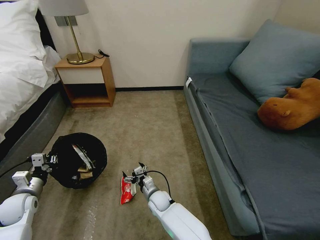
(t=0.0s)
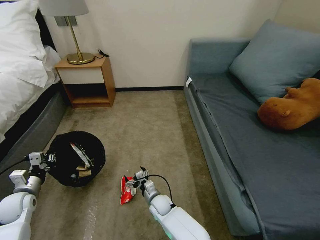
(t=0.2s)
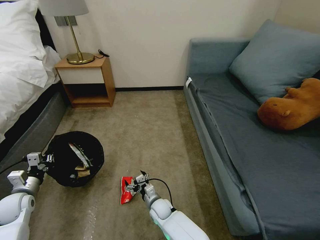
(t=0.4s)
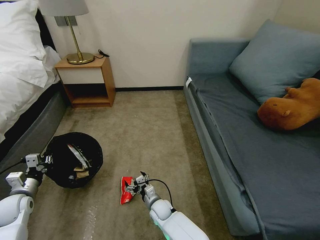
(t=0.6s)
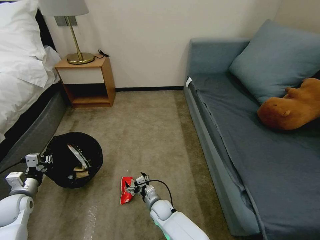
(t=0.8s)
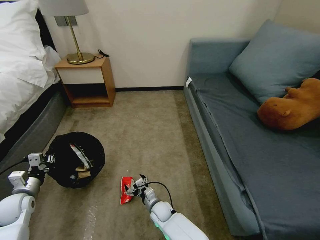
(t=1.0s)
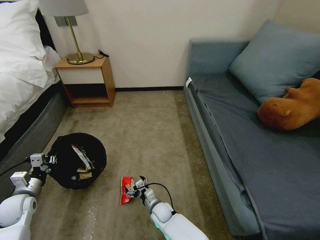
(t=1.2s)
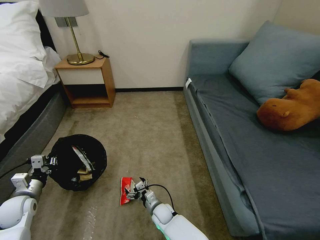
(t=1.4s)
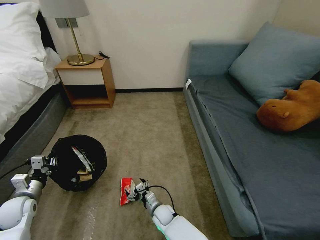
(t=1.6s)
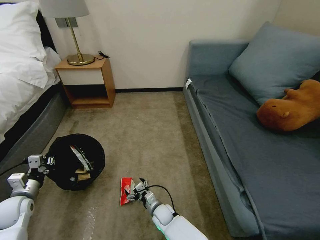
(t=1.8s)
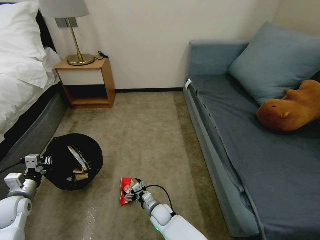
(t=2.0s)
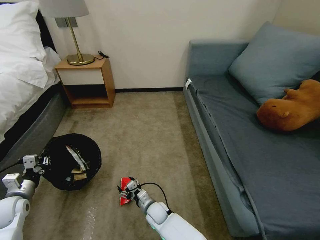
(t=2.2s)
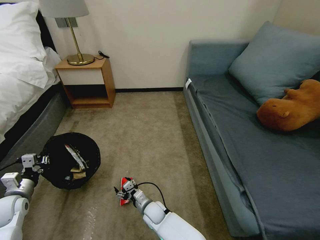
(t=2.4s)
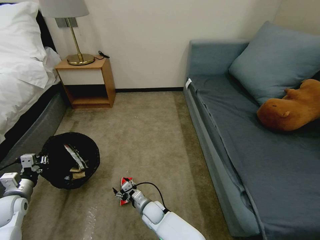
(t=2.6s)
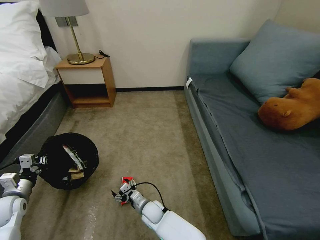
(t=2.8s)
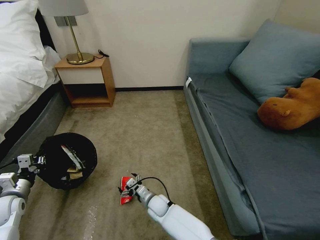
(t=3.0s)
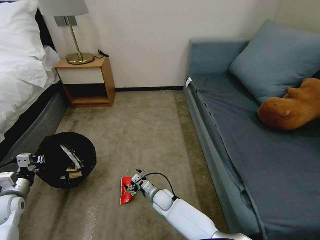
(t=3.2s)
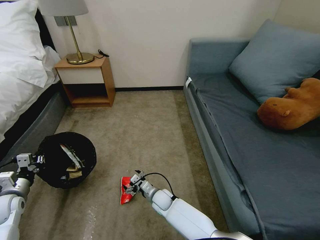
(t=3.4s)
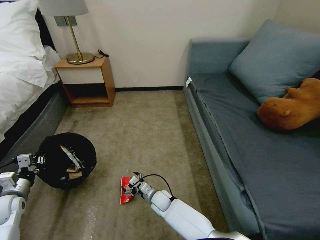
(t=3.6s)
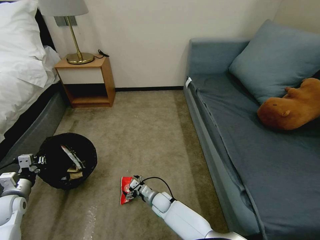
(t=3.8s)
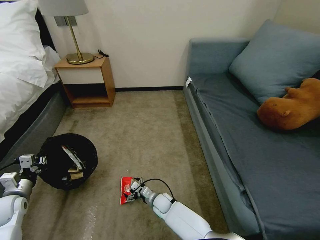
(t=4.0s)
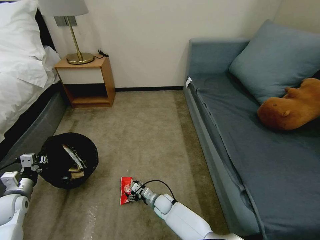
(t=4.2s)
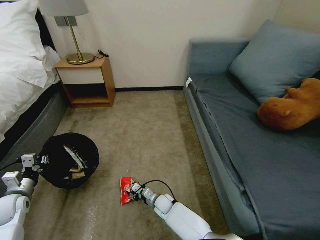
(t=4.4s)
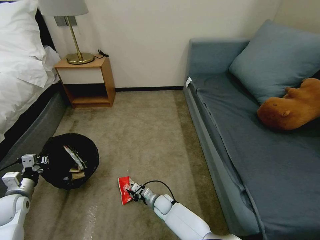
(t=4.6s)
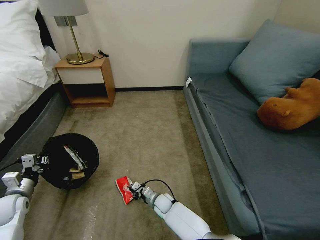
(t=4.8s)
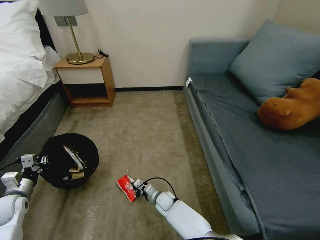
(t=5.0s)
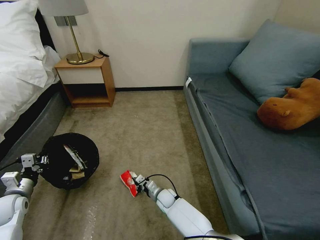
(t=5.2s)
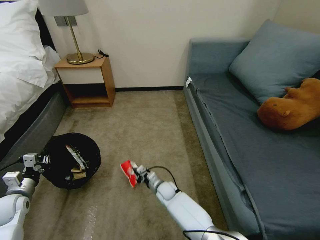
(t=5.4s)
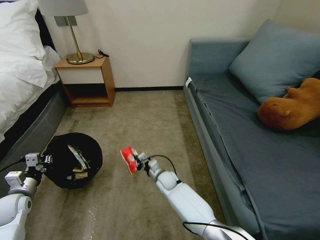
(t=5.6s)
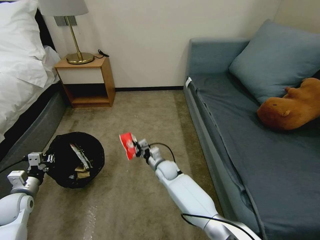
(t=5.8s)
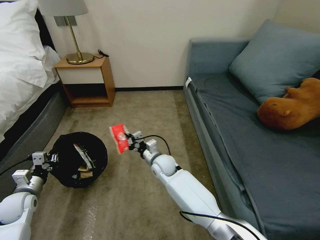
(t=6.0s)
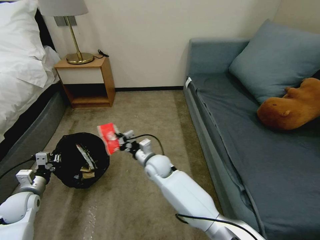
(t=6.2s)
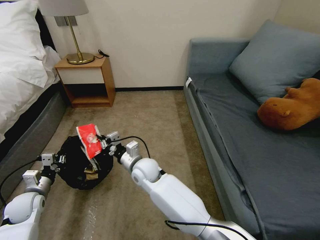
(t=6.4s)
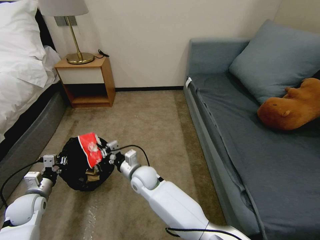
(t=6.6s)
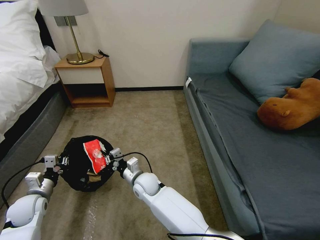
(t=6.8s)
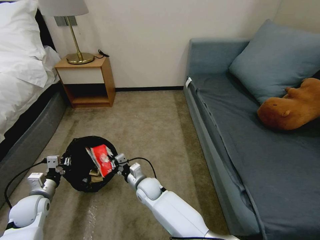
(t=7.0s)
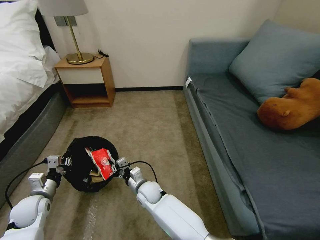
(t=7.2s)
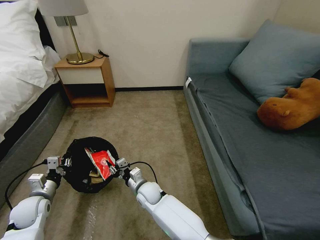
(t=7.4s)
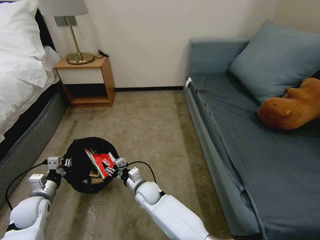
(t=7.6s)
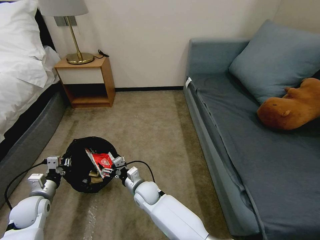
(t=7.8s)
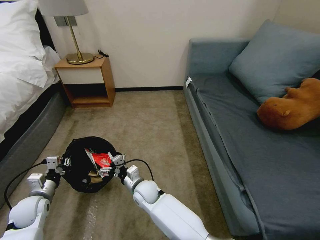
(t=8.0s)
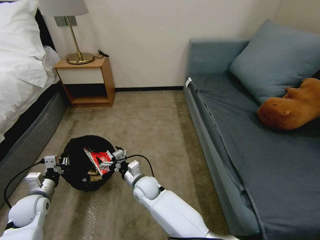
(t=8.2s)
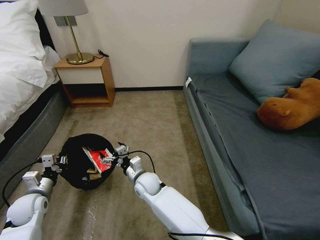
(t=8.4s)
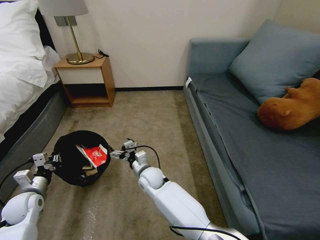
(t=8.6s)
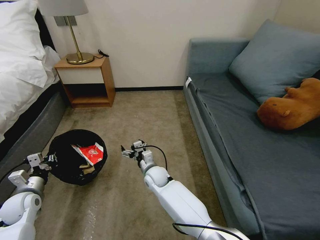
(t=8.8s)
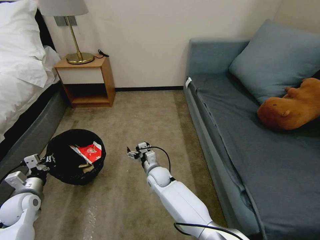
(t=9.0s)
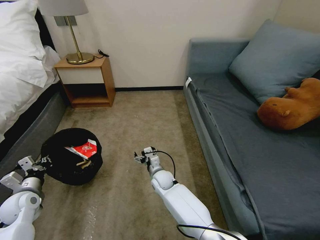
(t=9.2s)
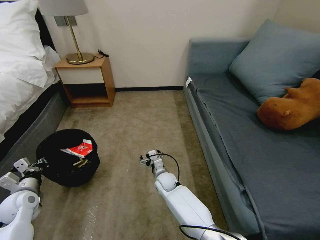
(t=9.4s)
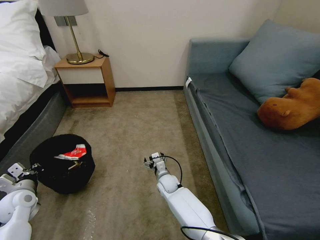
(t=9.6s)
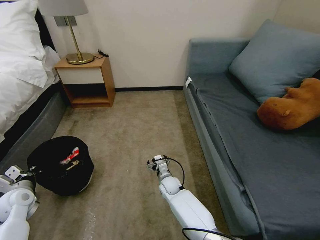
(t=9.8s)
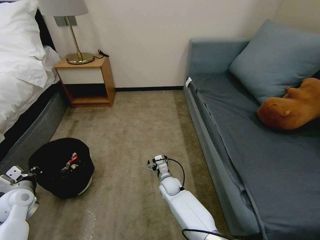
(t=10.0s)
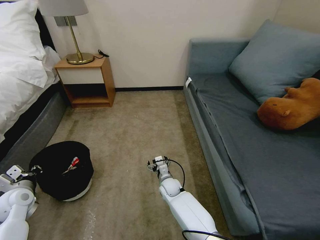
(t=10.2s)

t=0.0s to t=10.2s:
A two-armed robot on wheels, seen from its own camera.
Task of the whole recording: Pick up the trash bin, then pick up the garbage on the floor and place it into the trash bin.
t=0.0s to t=1.4s: The right gripper shifts about 5 cm downward.
t=1.4s to t=3.0s: The right gripper changes place by roughly 5 cm.
t=3.0s to t=4.4s: The right gripper ends up some 5 cm from where it was, and closes its fingers.
t=4.4s to t=5.8s: The right gripper travels upward and forward by some 15 cm, and closes.
t=5.8s to t=7.2s: The left gripper is displaced to the right by approximately 5 cm; the right gripper travels backward and to the left by about 10 cm, and travels upward and back again, roughly 10 cm each way.
t=7.2s to t=8.8s: The right gripper is displaced forward by roughly 5 cm, and opens.
t=8.8s to t=10.2s: The right gripper heads downward and to the right, covering about 10 cm.

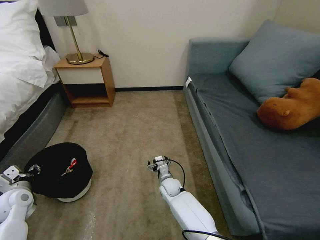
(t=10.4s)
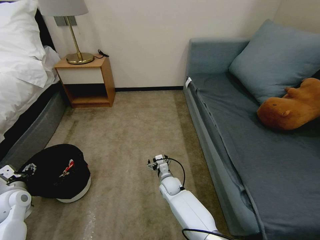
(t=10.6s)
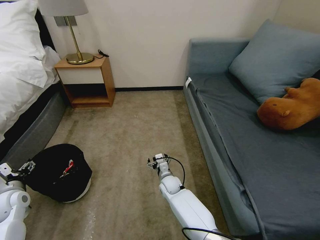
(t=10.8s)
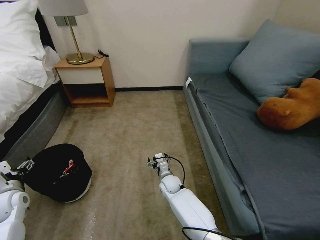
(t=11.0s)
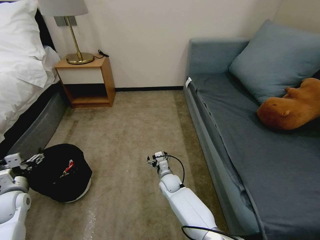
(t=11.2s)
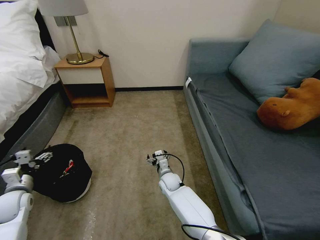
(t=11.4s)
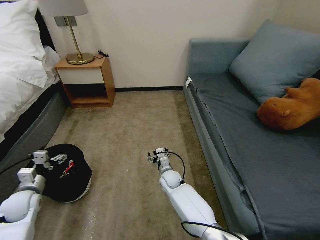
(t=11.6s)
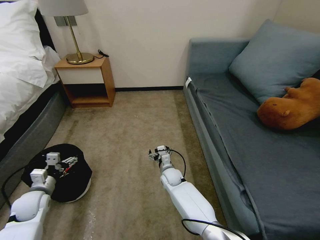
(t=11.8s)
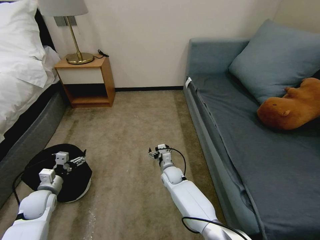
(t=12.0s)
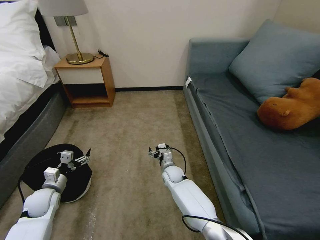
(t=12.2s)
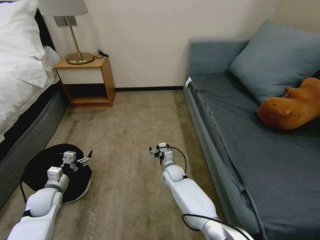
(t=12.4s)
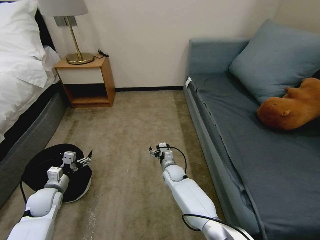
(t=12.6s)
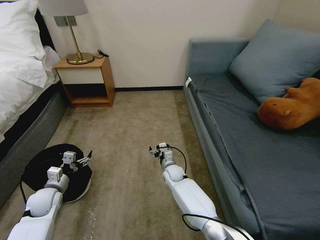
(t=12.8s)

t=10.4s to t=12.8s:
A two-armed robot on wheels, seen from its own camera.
Task of the whole recording: Pick up the trash bin, then pick up the garbage on the floor and place it into the trash bin.
t=10.4s to t=11.6s: The left gripper opens up.
t=11.6s to t=12.8s: The left gripper moves to the right, about 5 cm.
